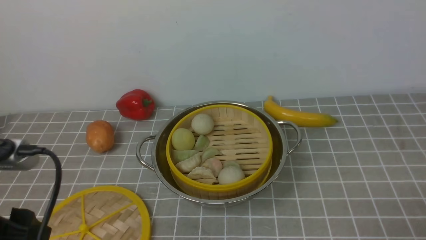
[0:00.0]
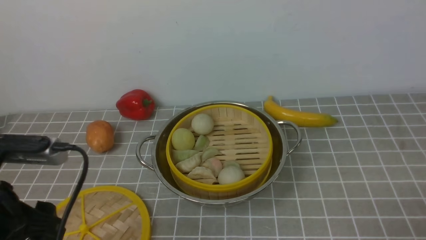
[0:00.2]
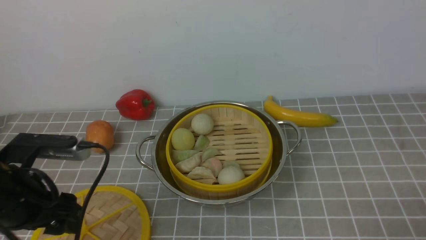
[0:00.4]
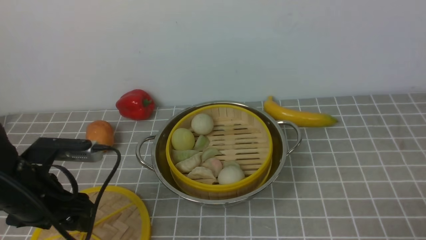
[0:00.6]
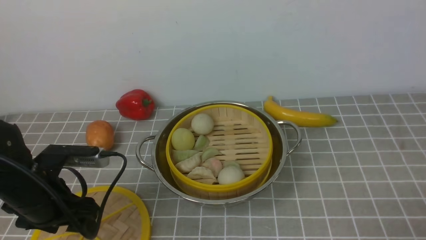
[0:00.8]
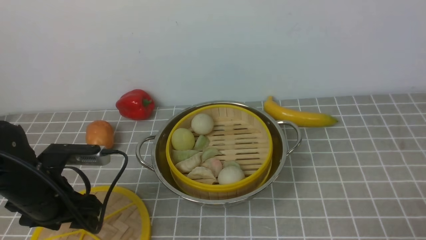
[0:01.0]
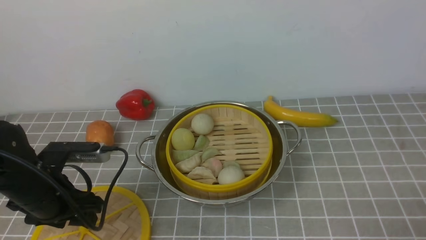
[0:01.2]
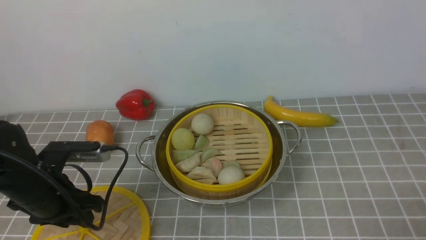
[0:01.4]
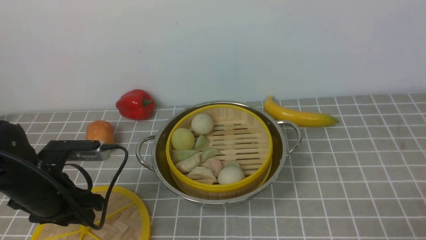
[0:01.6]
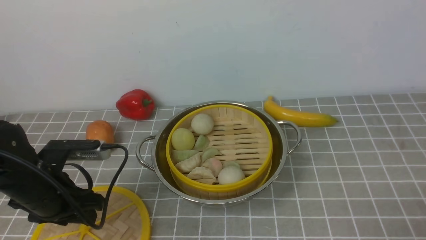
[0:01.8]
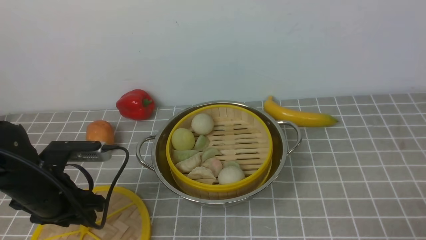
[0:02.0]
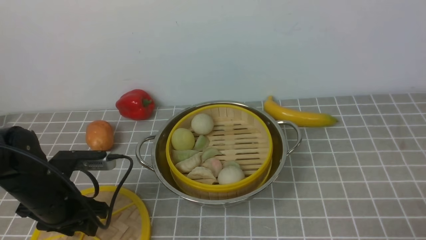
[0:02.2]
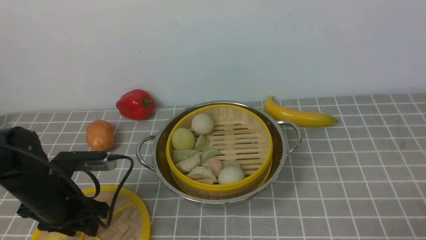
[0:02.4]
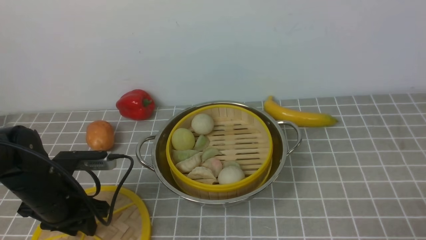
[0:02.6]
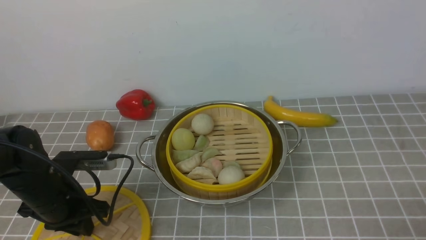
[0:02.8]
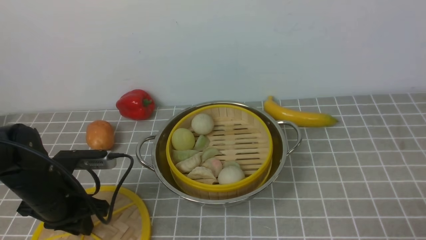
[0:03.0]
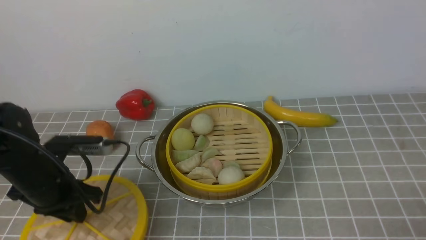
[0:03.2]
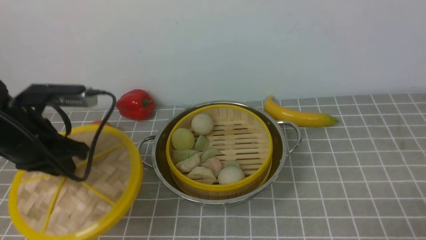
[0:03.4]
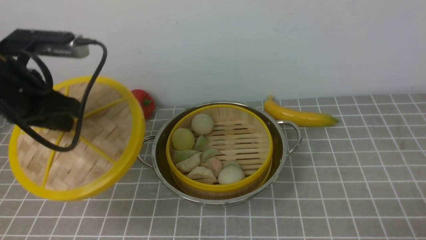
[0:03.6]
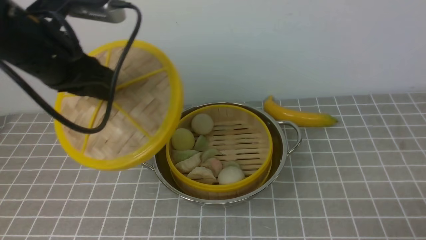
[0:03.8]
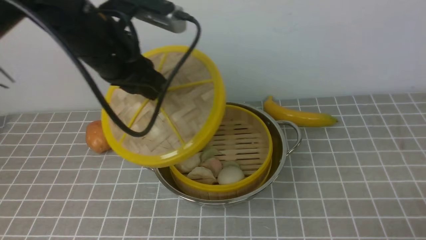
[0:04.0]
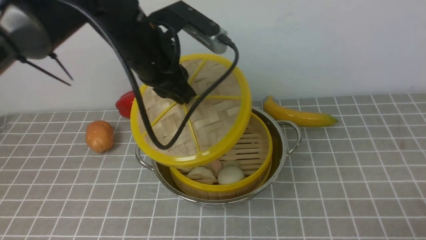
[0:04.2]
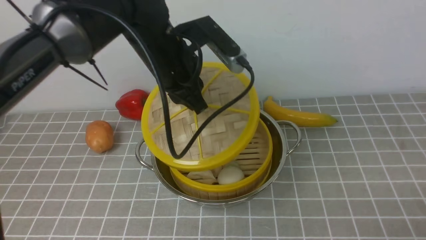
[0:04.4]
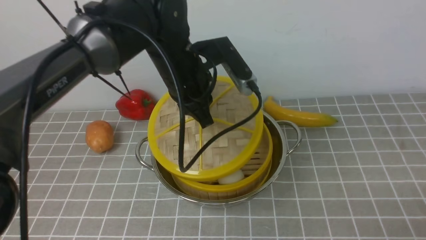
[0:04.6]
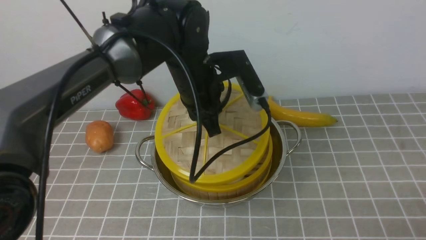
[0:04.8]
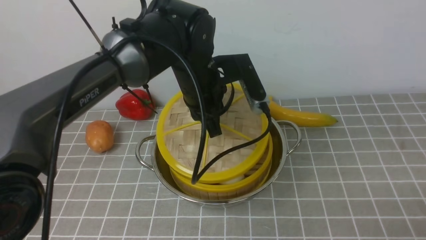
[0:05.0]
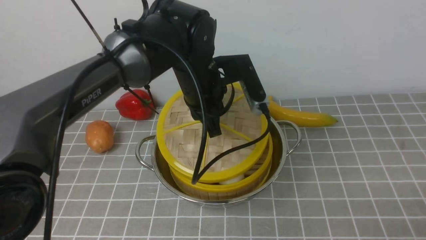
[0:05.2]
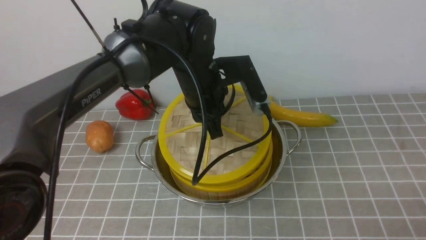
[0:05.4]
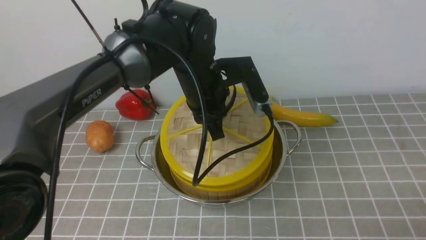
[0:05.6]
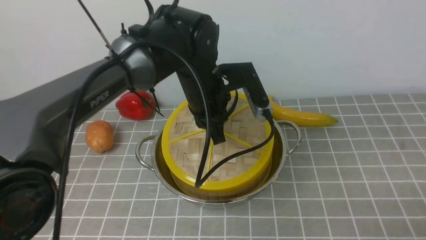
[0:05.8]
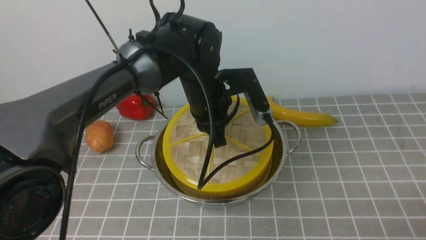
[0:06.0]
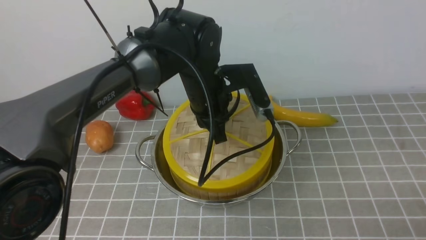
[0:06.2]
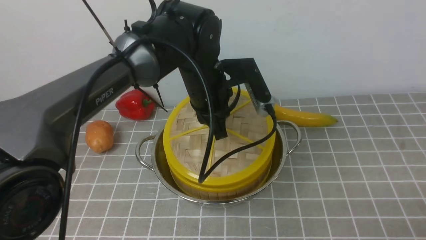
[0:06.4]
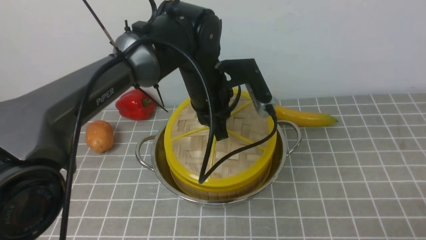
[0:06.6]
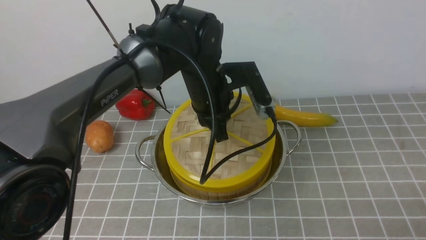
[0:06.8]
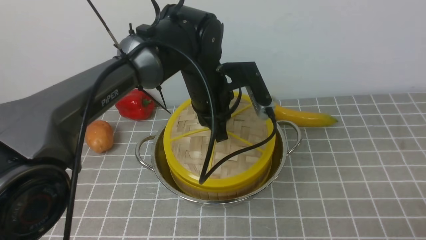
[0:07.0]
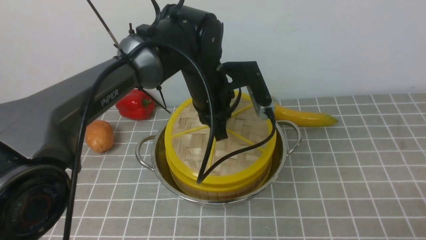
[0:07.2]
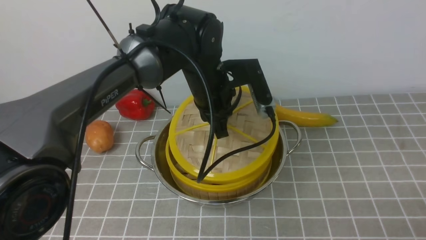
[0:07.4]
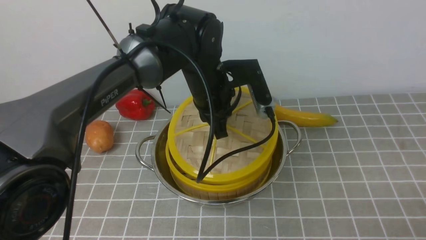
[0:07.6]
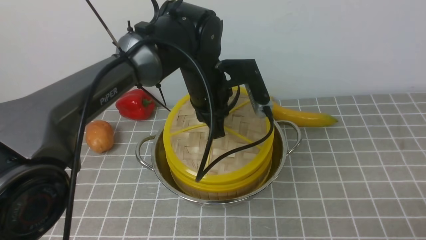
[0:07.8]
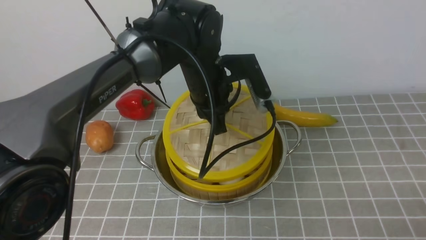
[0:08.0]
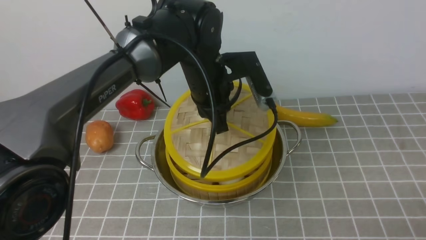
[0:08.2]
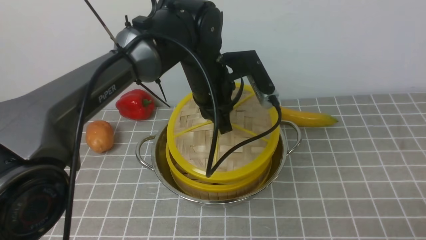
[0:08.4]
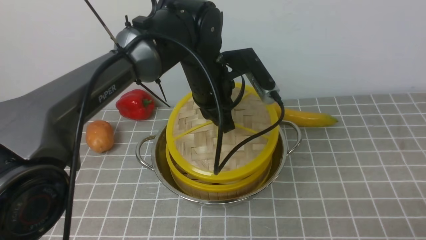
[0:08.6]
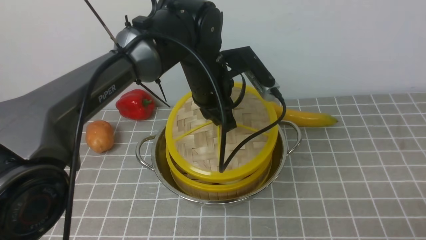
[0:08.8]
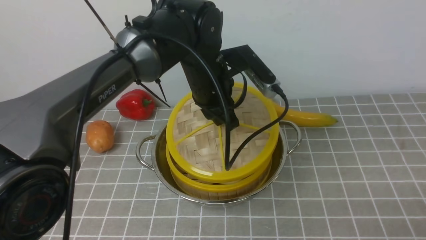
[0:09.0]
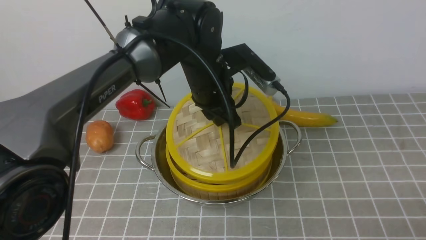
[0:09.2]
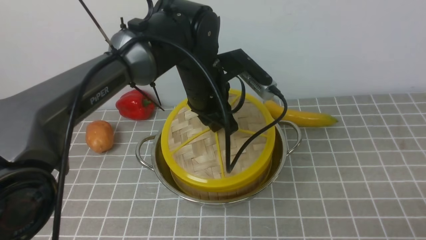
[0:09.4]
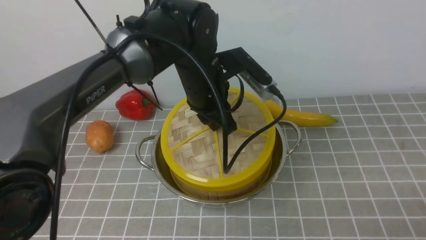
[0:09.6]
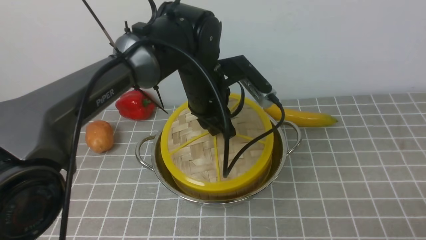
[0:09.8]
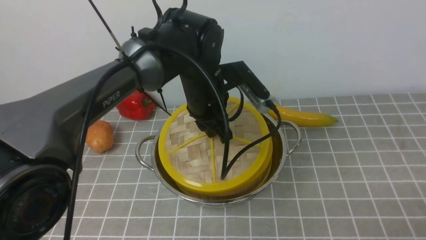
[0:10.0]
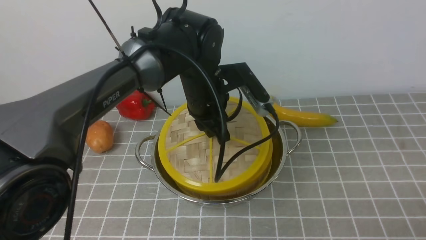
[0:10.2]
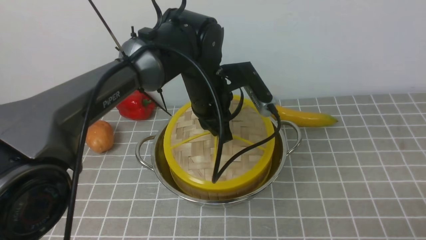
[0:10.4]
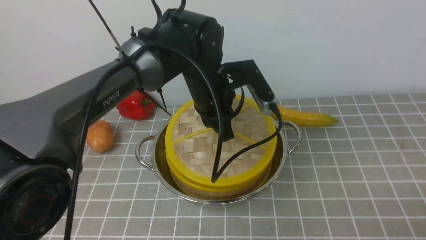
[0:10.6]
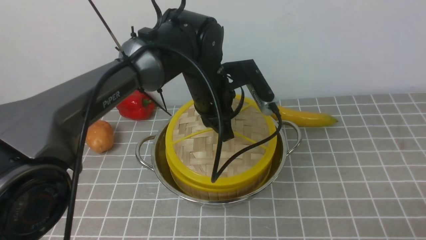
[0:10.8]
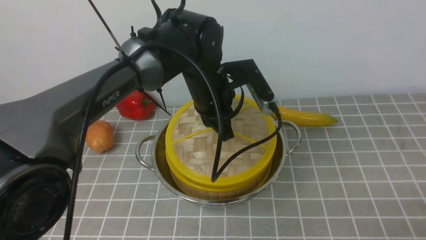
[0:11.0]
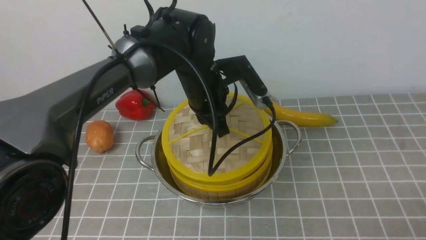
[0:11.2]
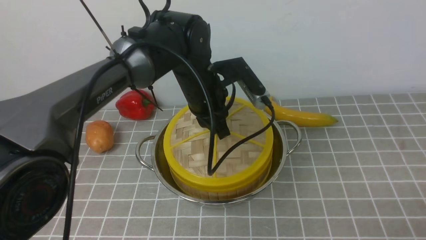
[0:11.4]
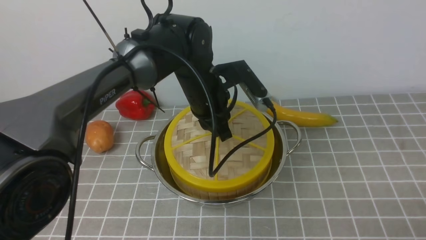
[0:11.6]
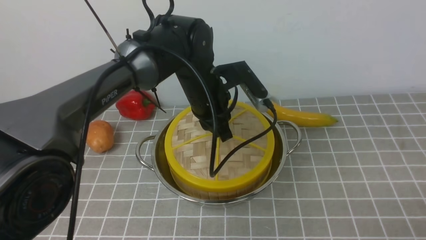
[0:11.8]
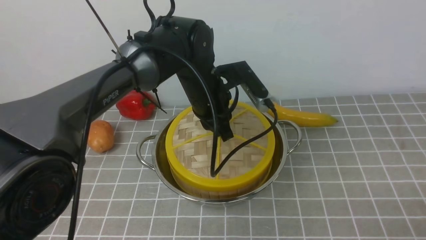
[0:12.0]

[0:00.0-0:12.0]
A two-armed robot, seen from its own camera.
Task of the whole recording: place the steamer in the pot on the grey tablecloth, and put the lid on the steamer.
Step, 0:00.0 to 0:03.0: use the left arm to lift the lid of the steamer.
0:00.0 to 0:01.6: The left gripper goes about 20 cm forward and downward, and closes its fingers.
0:01.6 to 0:03.0: The left gripper closes.
0:03.0 to 0:04.4: The left gripper travels to the right, upward and forward by approximately 25 cm.
0:04.4 to 0:06.0: The left gripper is displaced downward and to the right by roughly 10 cm.
0:06.0 to 0:07.6: The two grippers keep their place.
0:07.6 to 0:09.0: There are only small adjustments of the grippers.
0:09.0 to 0:12.0: There are only small adjustments of the grippers.

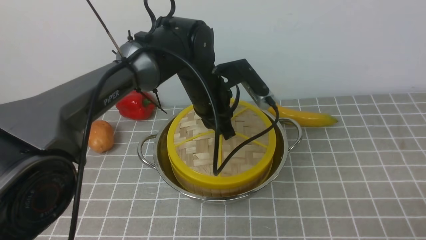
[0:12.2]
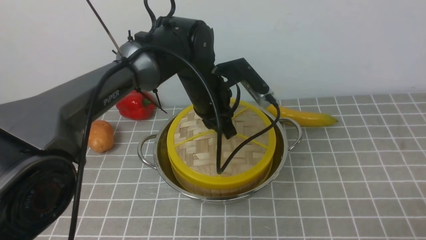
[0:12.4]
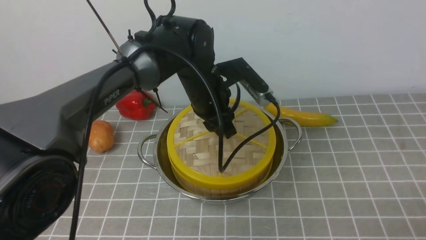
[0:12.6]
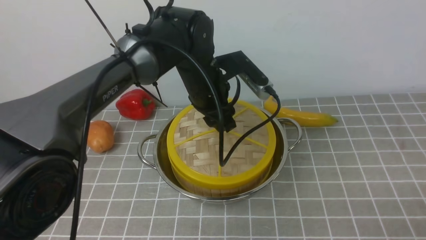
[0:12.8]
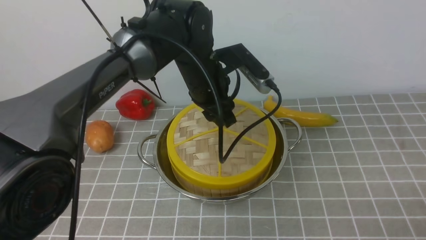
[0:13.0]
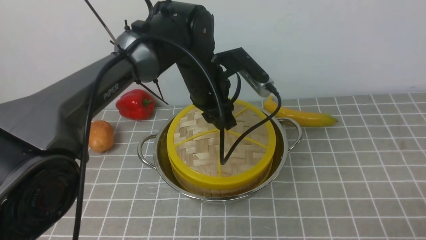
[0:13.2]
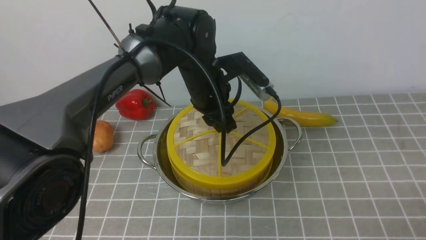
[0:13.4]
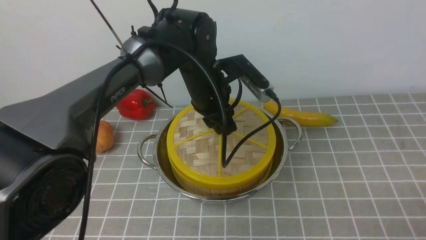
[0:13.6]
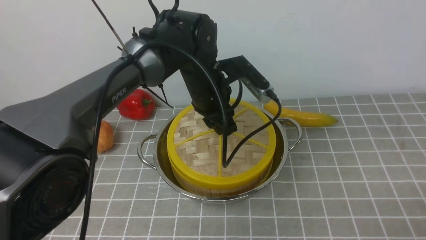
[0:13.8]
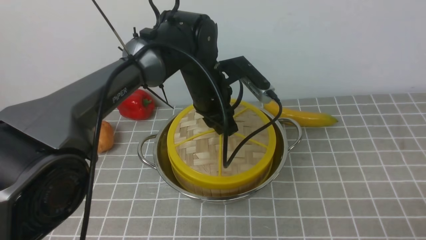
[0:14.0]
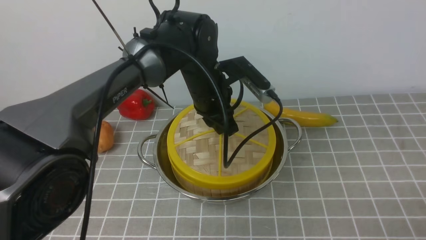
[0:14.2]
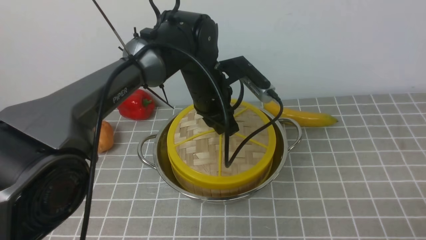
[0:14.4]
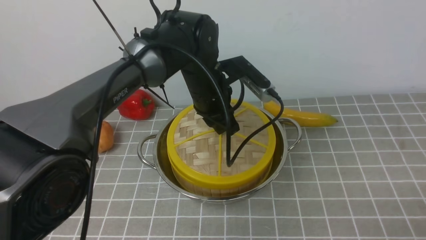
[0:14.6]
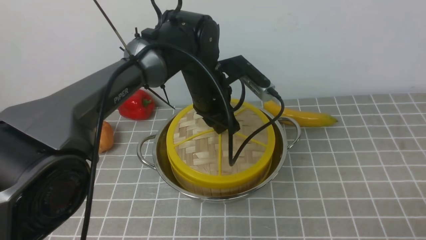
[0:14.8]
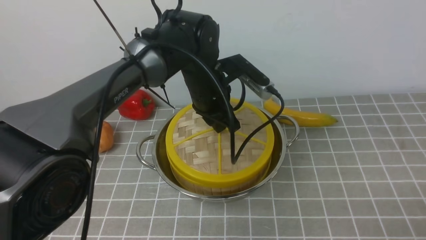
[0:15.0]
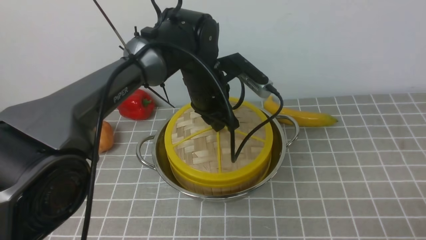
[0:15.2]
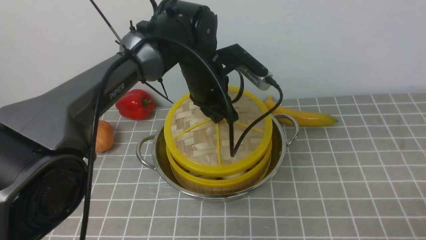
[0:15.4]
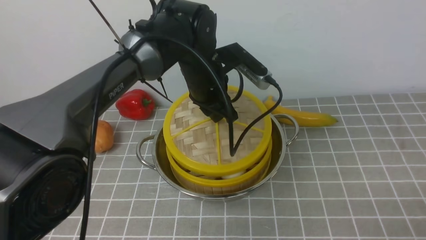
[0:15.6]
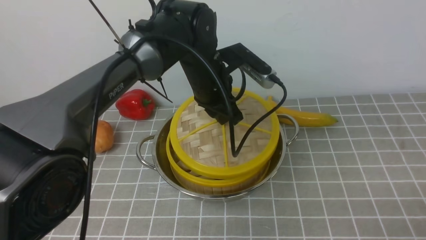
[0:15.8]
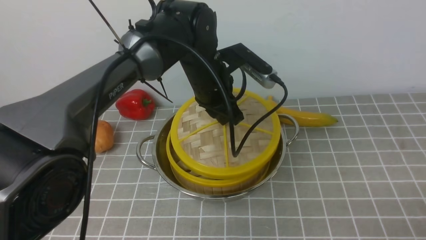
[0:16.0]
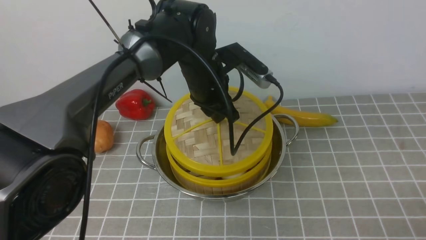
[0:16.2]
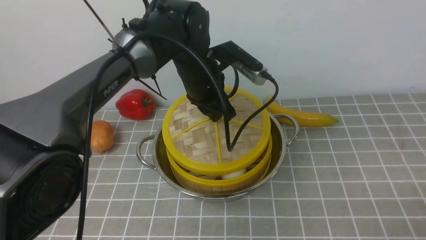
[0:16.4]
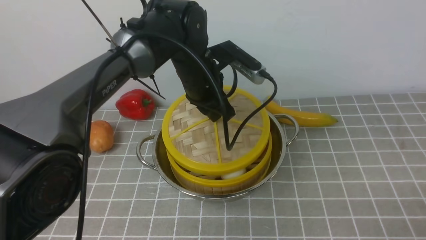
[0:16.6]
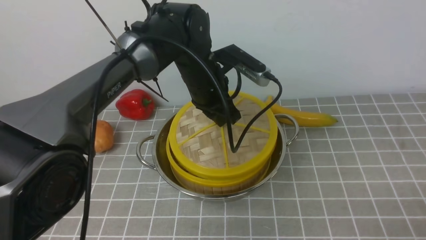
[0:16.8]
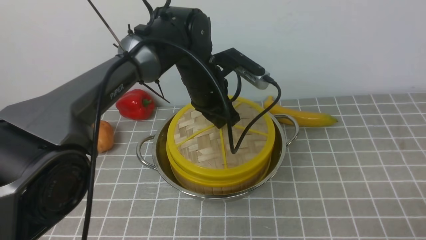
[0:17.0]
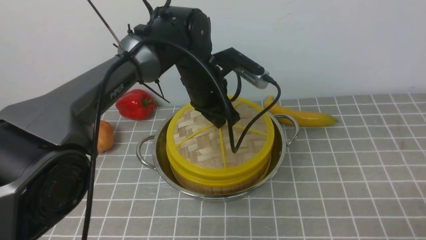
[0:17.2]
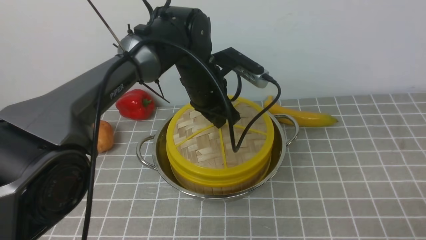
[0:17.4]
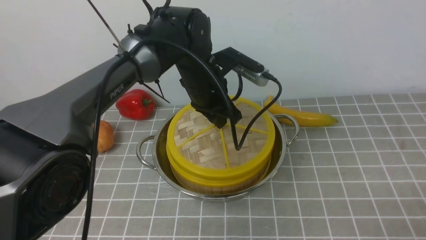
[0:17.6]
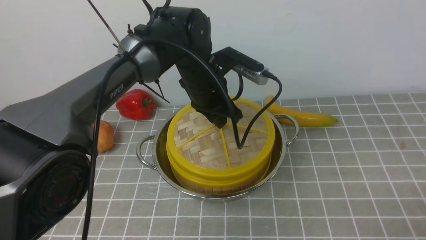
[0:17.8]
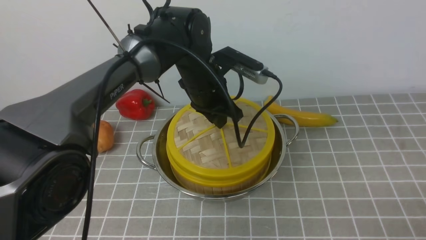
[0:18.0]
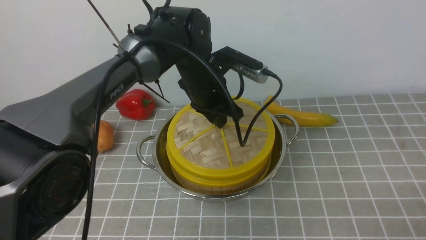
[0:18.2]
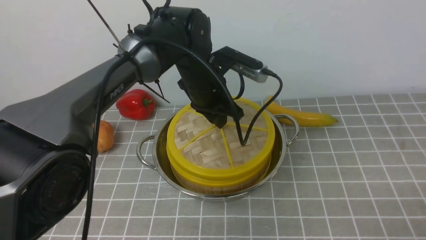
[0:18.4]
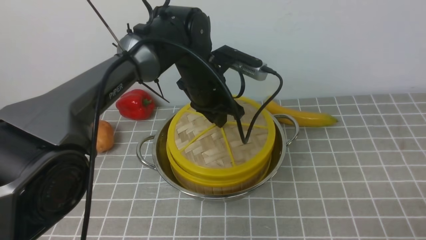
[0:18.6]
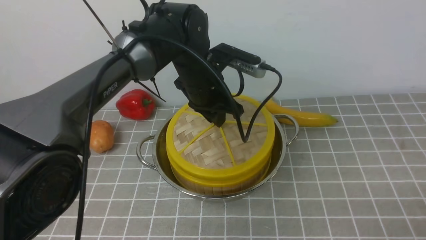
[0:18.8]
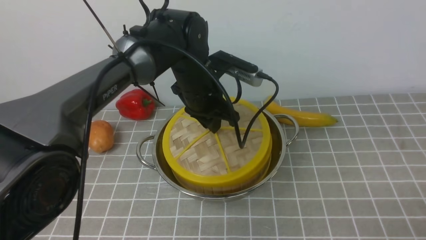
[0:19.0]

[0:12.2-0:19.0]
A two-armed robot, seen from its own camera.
Task of the whole recording: place the steamer in the pot on the grey tablecloth, and put the lid on the steamer.
0:12.2 to 0:17.6: There are only small adjustments of the grippers.
0:17.6 to 0:19.0: The grippers stay close to where they were, moving slightly.
